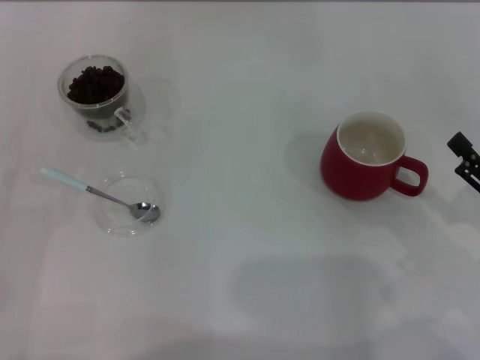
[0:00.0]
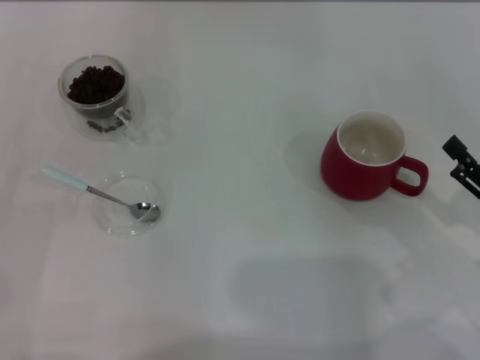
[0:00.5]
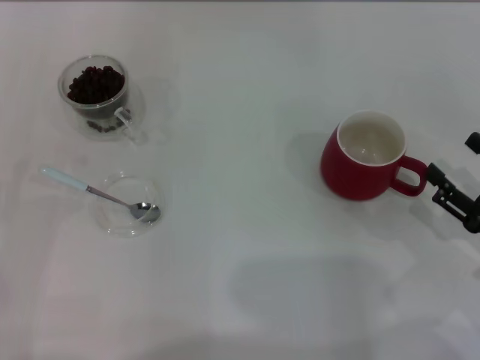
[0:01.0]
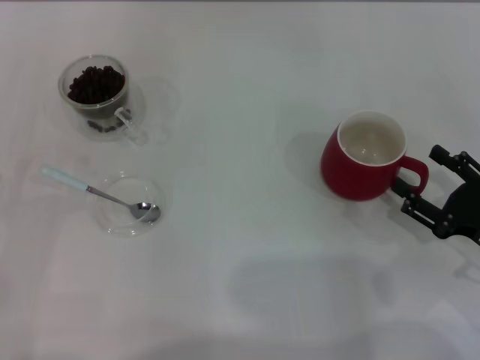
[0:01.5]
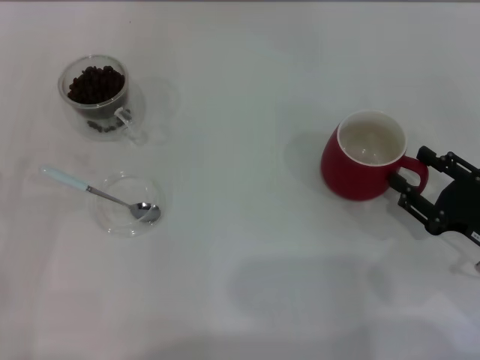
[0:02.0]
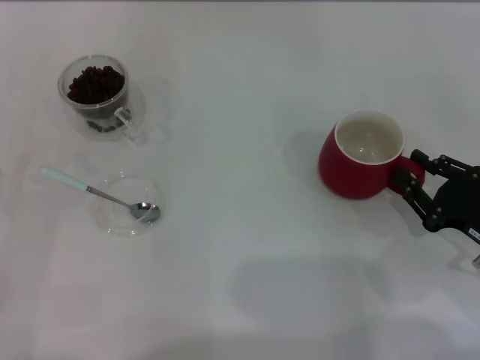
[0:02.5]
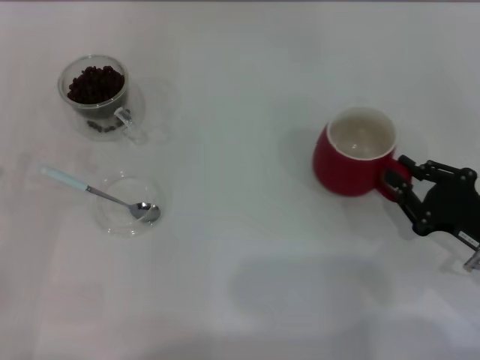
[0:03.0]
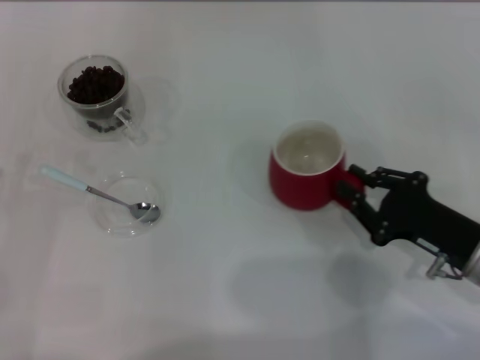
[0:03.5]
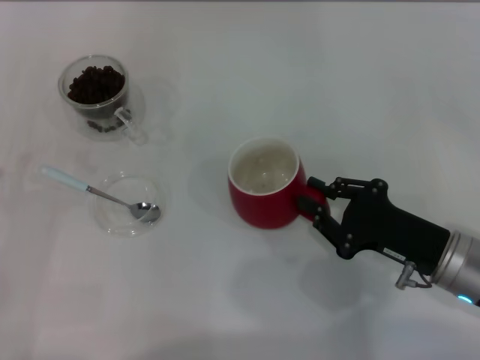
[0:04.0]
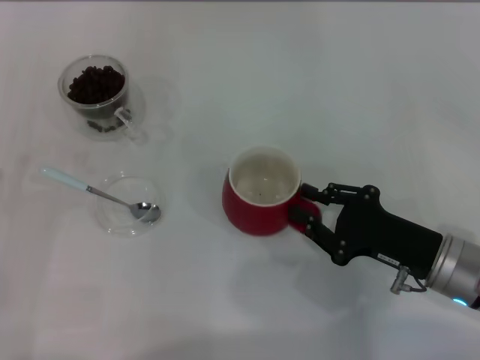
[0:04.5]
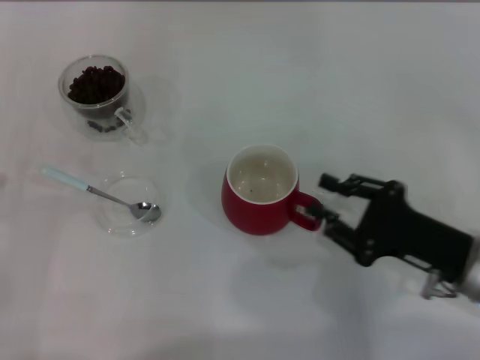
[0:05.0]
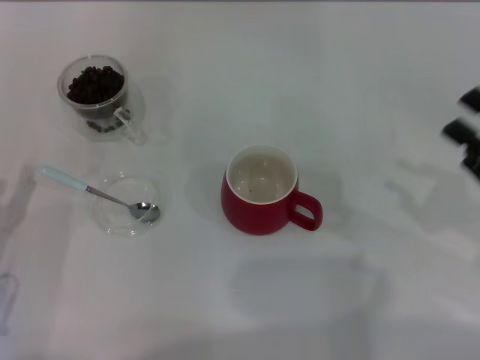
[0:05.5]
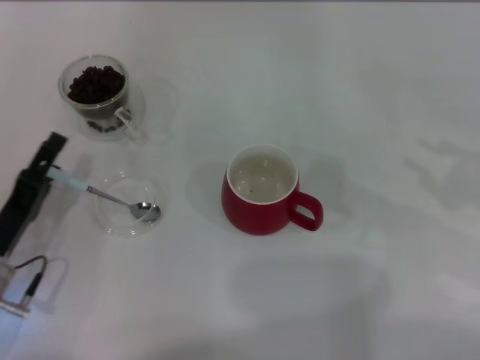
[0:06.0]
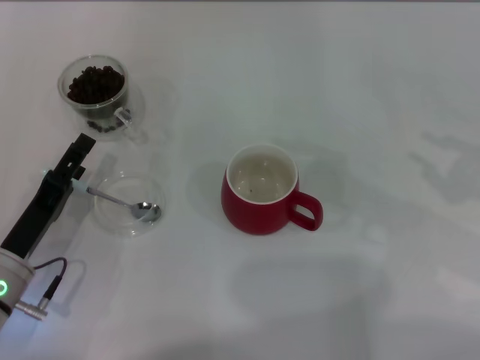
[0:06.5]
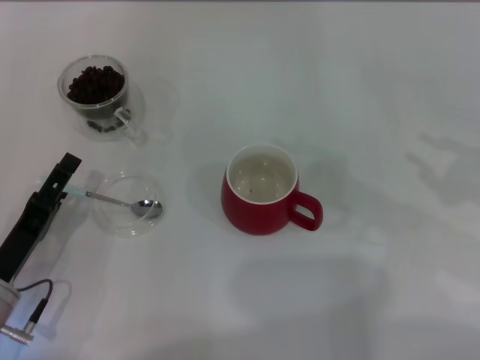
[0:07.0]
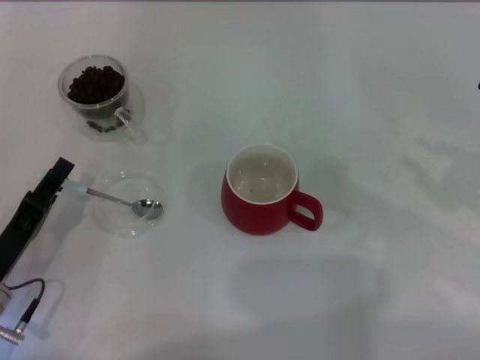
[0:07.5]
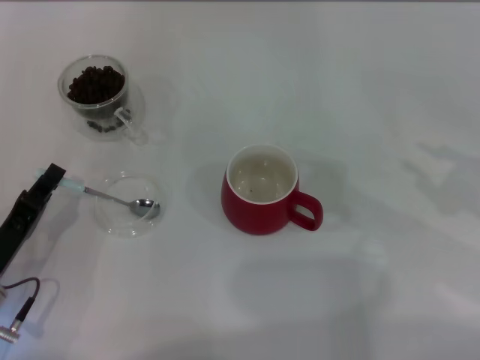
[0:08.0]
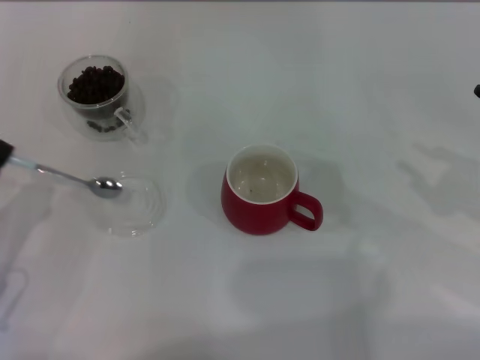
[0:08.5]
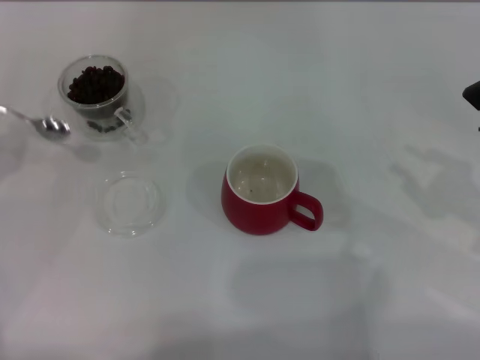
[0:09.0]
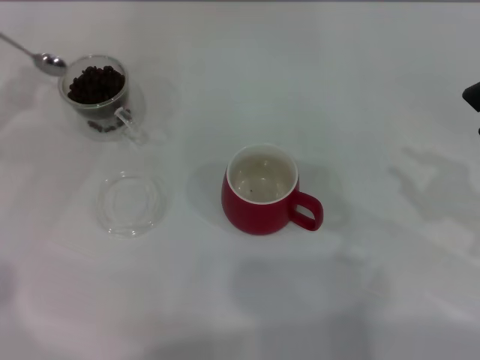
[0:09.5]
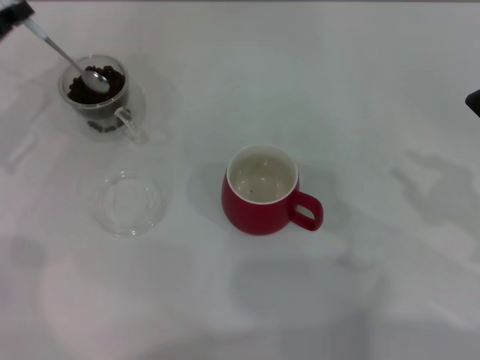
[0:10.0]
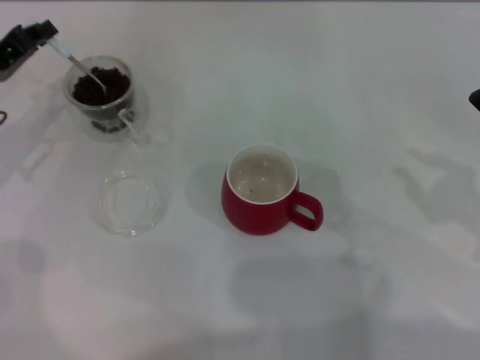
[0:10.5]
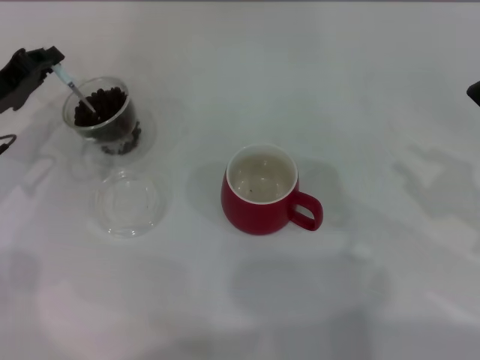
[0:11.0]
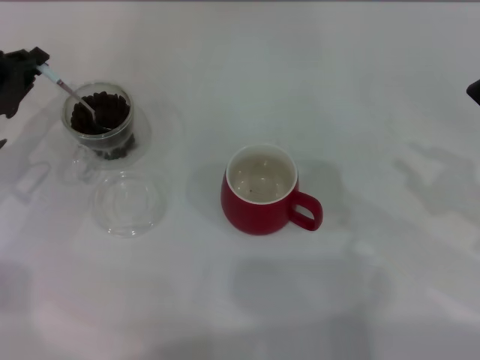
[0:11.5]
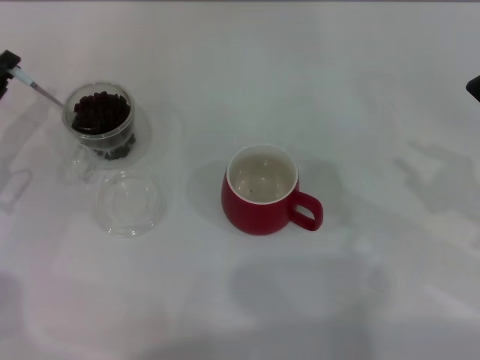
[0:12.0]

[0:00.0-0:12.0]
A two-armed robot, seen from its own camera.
Task of the whole recording: Use a blue spoon to take out the coffee beans from the glass and pour them into the red cup.
Step, 0:00.0 to 0:05.0: Move the cup to the center of view with the left gripper.
Step, 0:05.5 to 0:08.5: Pick up the spoon with the right gripper.
0:00.0 to 0:02.0: The grippers make only small movements.
0:02.0 to 0:04.0: The right gripper heads to the left, covering approximately 5 cm, and closes up.
0:04.0 to 0:06.0: The left gripper travels to the right by approximately 5 cm. Meanwhile the right gripper travels to the right and upward by approximately 15 cm.
0:06.0 to 0:08.0: The left gripper closes up.
0:08.0 to 0:10.0: The left gripper goes about 20 cm forward and upward.
0:10.0 to 0:12.0: The left gripper is displaced backward by approximately 5 cm.

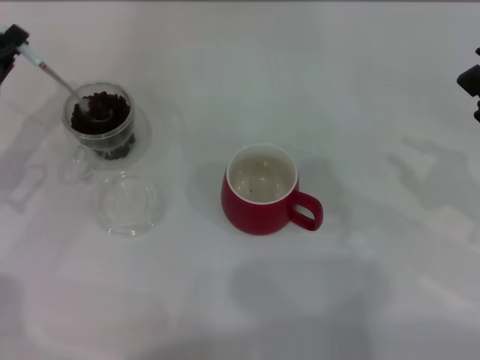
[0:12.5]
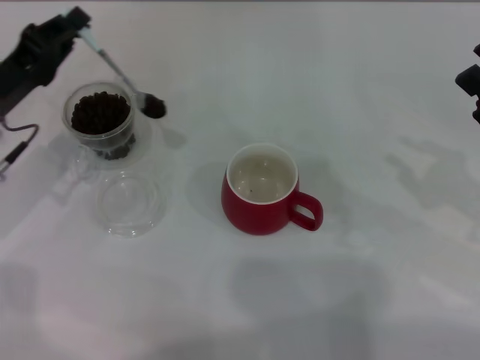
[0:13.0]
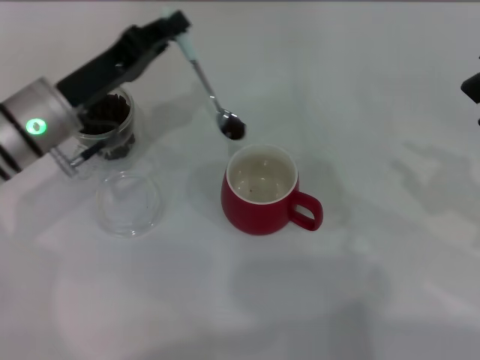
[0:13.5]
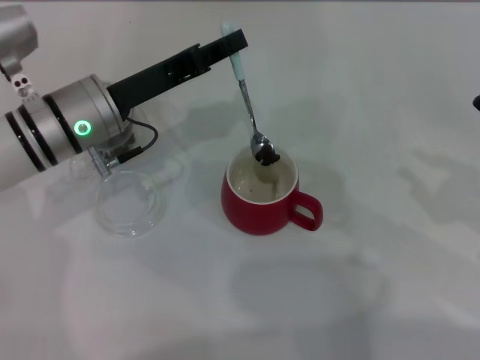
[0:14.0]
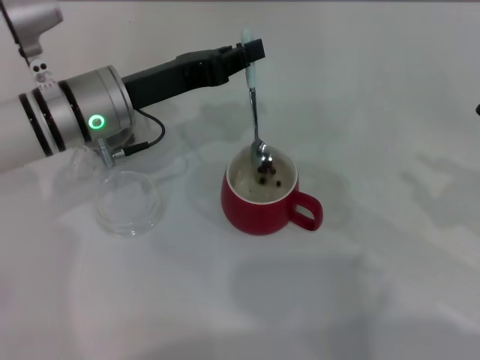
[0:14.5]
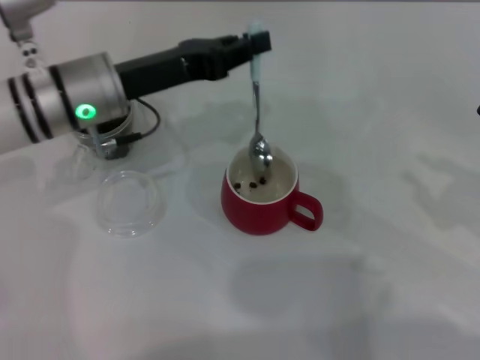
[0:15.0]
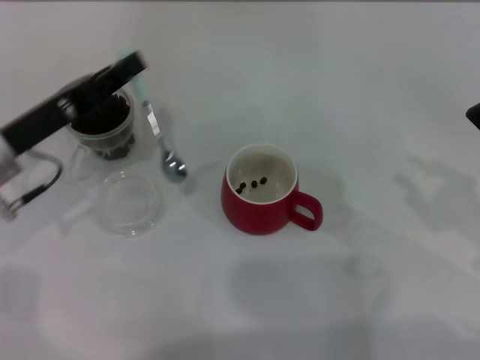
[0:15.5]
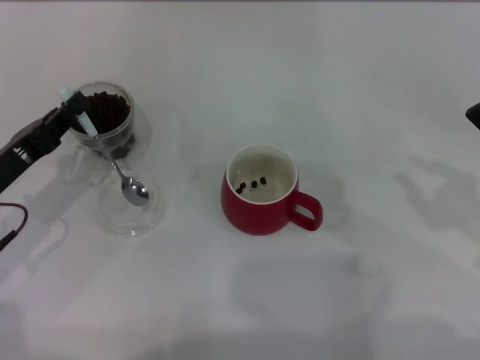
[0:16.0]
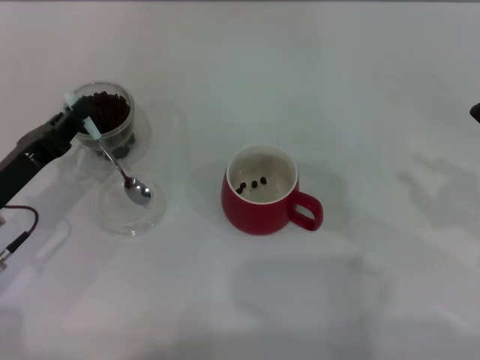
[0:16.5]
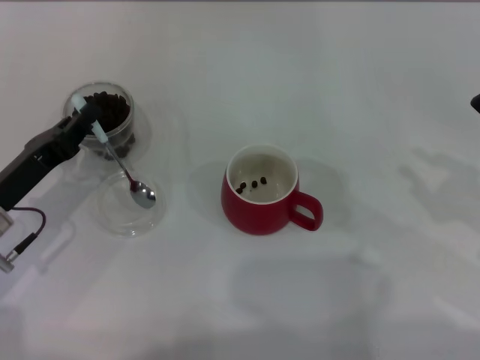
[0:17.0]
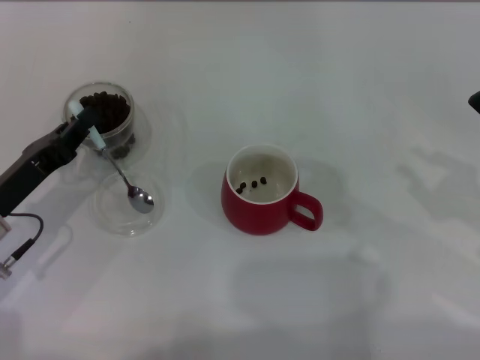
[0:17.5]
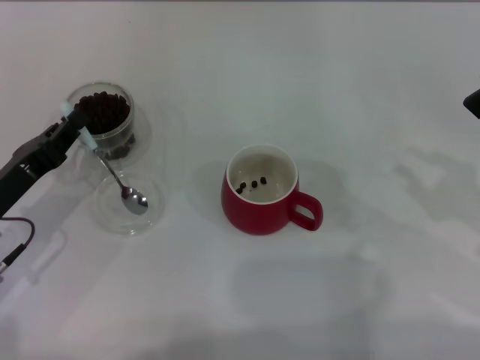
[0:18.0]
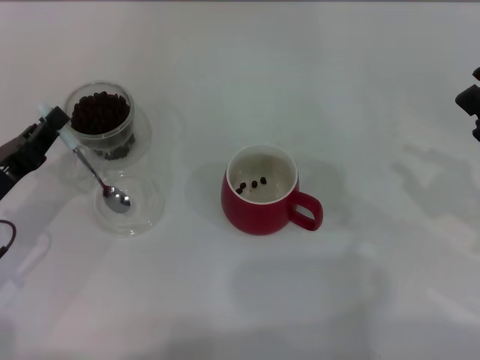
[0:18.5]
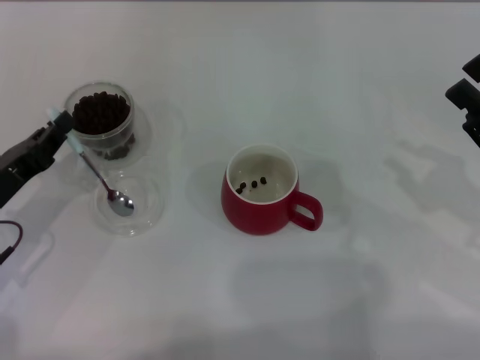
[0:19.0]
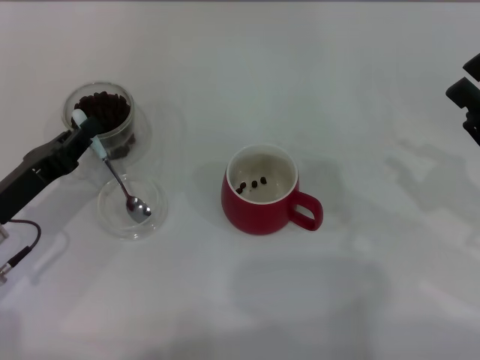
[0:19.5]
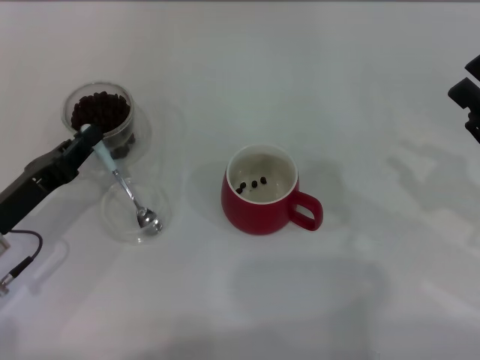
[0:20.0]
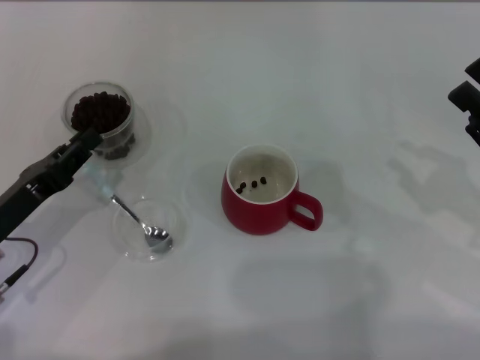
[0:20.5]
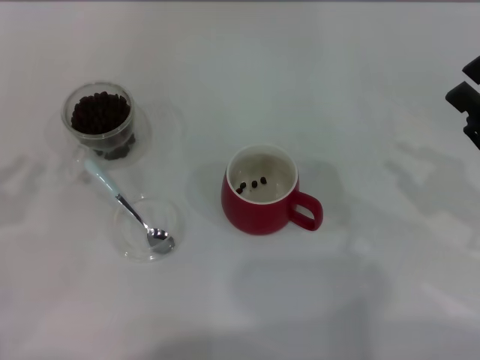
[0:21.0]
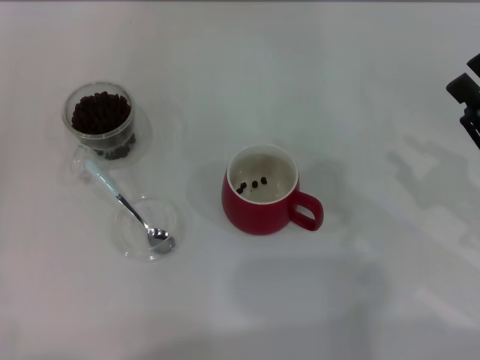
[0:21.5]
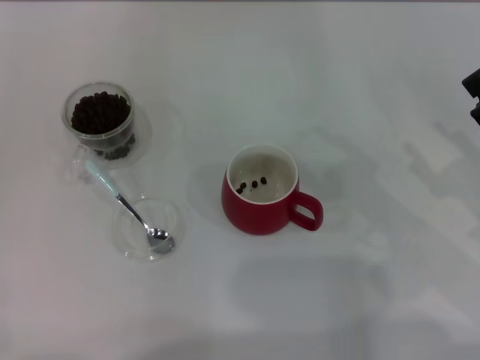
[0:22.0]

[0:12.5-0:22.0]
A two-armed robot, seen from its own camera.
Task of the whole recording: Use a blue spoon to take out the coffee beans from the glass and pour them into the red cup.
Step, 0:12.5 to 0:15.0: Scoop a spoonful of beans into the cup with the right gripper.
Step, 0:15.5 to 0:20.5: Place the spoon back in its original place with the right gripper.
0:12.5 to 0:14.5: The left gripper moves to the right, approximately 15 cm.
0:14.5 to 0:16.5: The left gripper heads to the left, backward and downward, covering about 15 cm.
0:16.5 to 0:18.0: The two grippers keep their place.
0:18.0 to 0:20.0: The grippers stay close to where they were, moving slightly.
0:20.0 to 0:22.0: The left gripper travels to the left and backward by approximately 20 cm.
